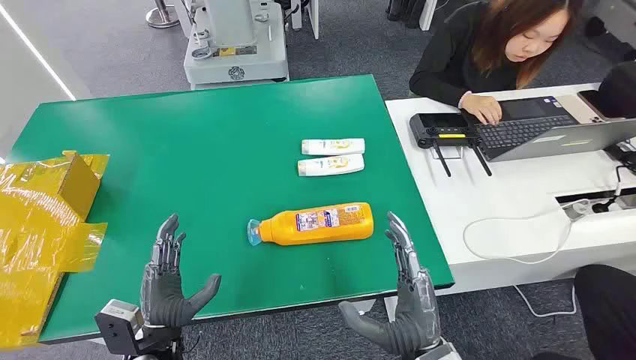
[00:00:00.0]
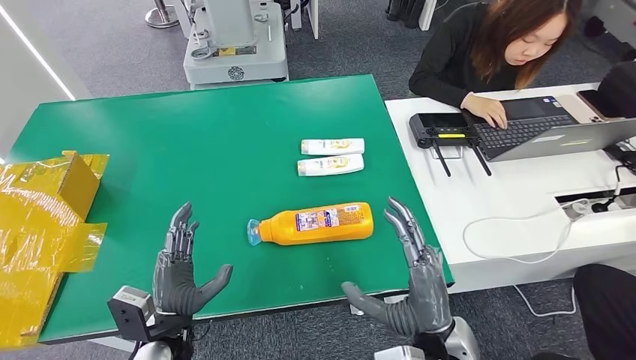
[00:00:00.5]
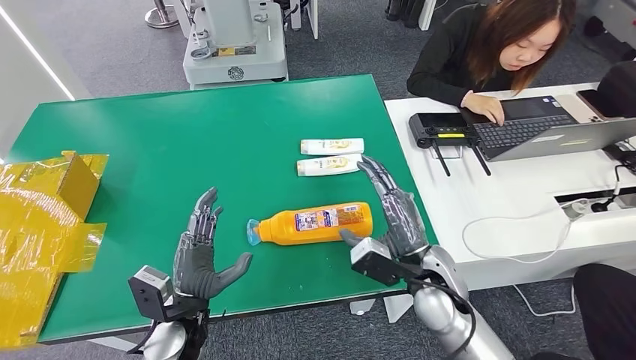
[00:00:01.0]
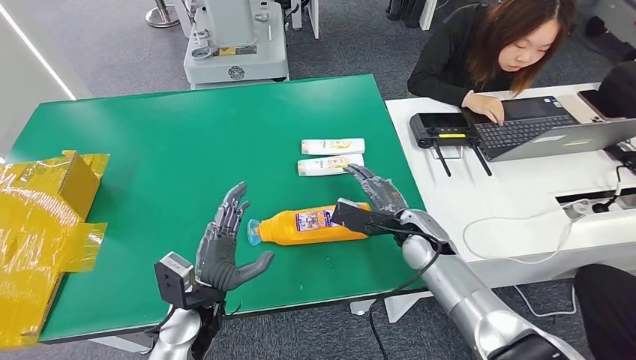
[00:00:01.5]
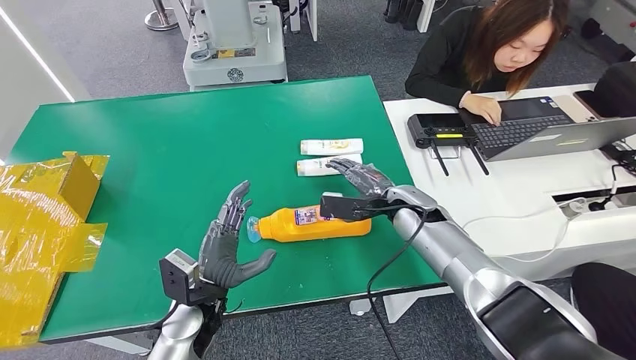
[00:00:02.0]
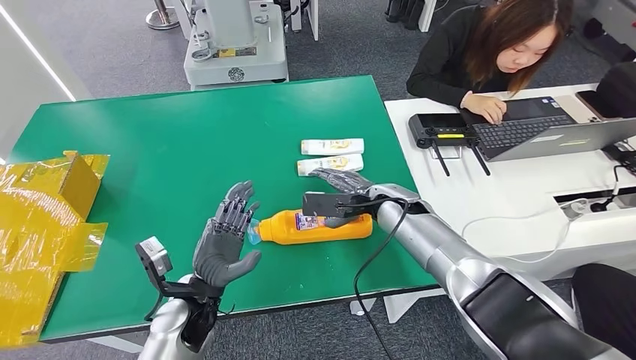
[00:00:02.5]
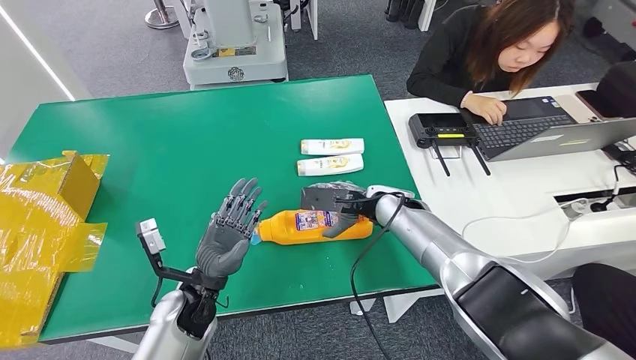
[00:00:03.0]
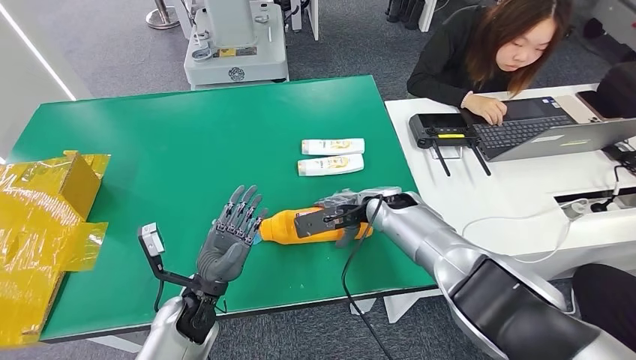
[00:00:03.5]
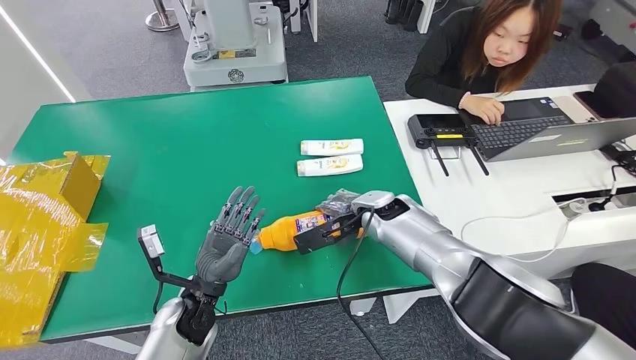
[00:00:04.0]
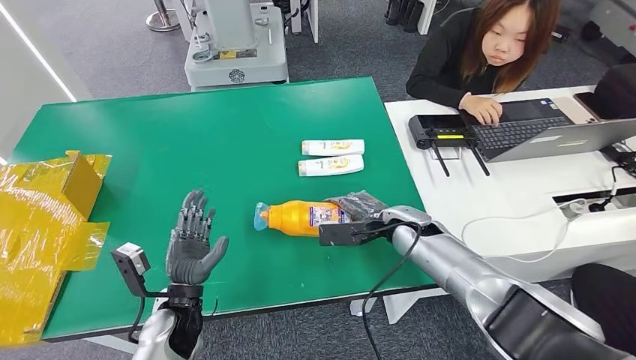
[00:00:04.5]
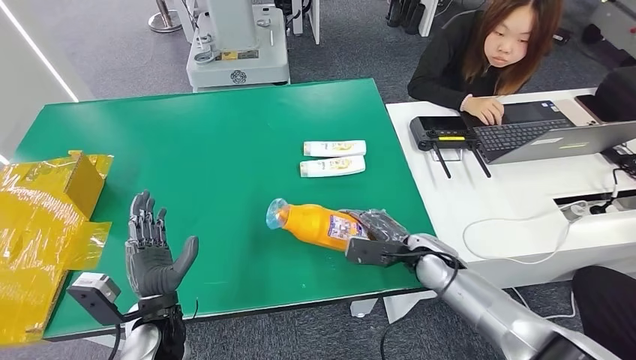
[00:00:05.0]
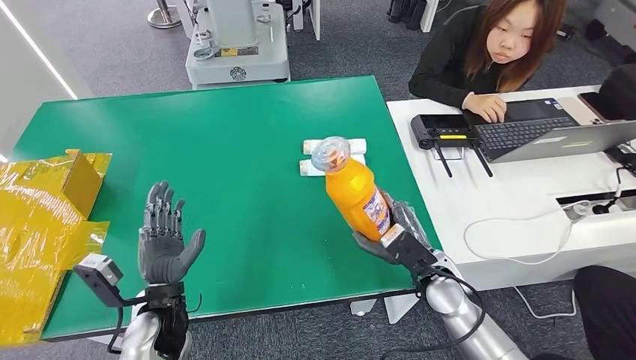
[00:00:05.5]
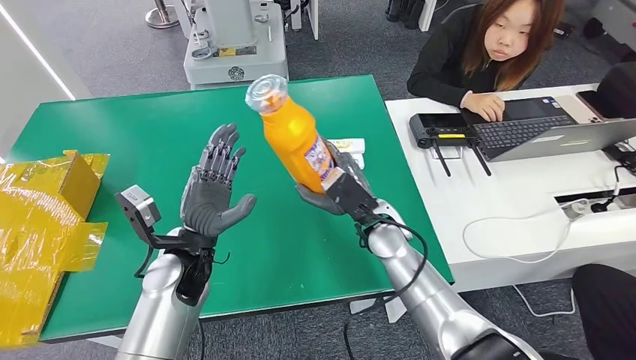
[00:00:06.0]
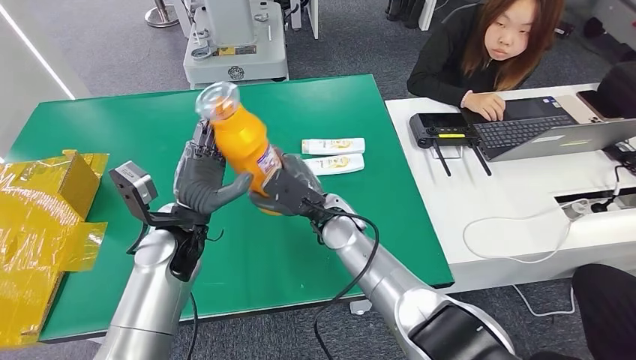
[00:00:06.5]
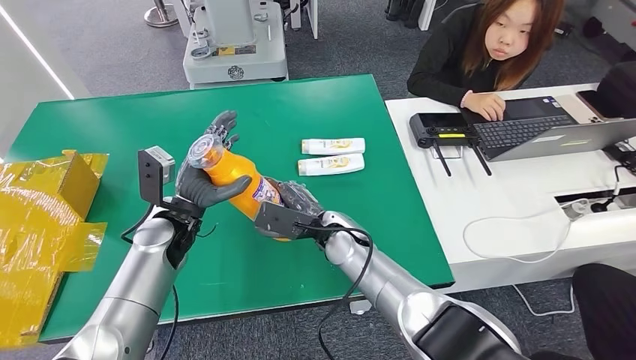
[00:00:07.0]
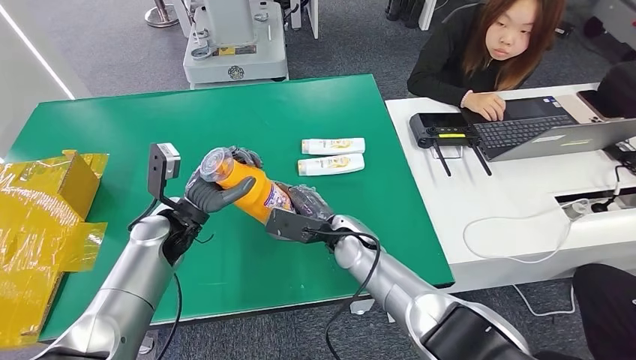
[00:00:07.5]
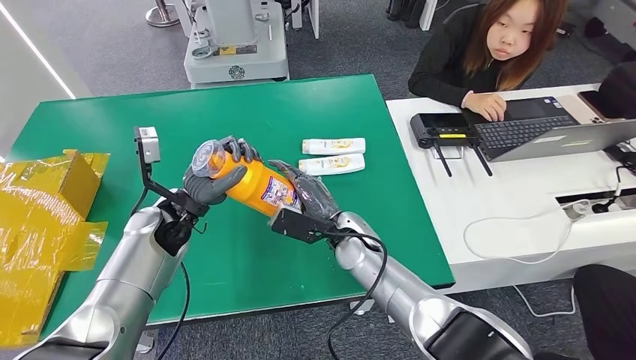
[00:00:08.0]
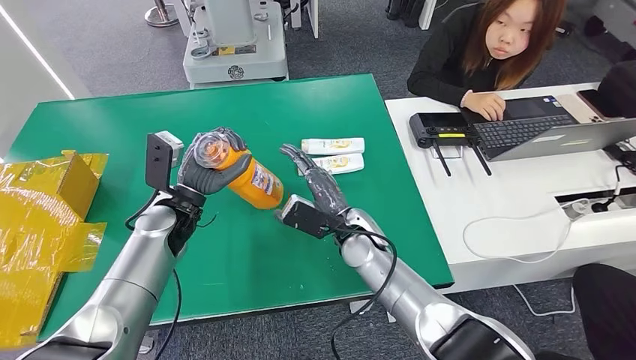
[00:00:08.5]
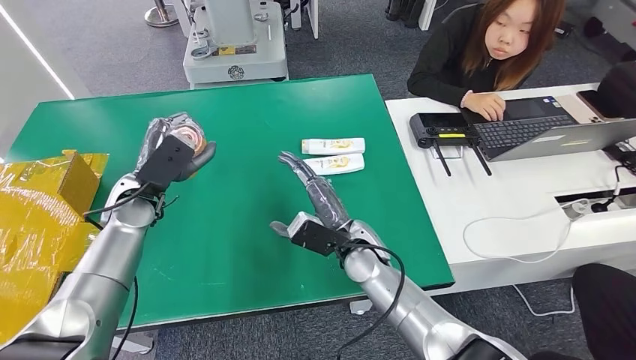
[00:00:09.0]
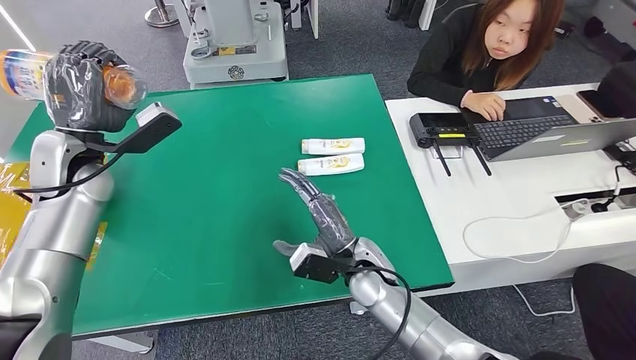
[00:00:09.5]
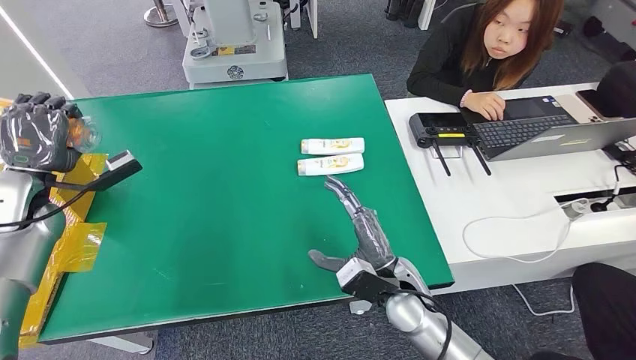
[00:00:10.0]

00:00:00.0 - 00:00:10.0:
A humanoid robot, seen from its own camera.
Step, 00:00:00.0 - 00:00:05.0: Pick up the bottle from the table.

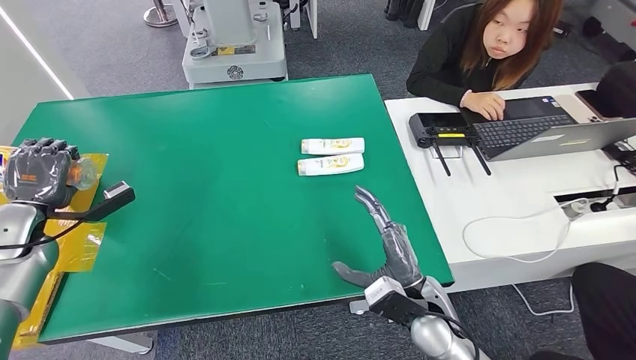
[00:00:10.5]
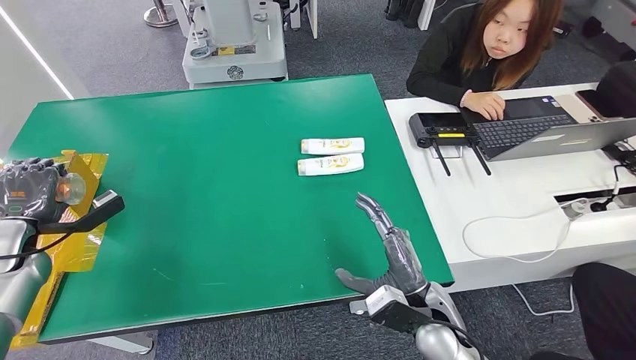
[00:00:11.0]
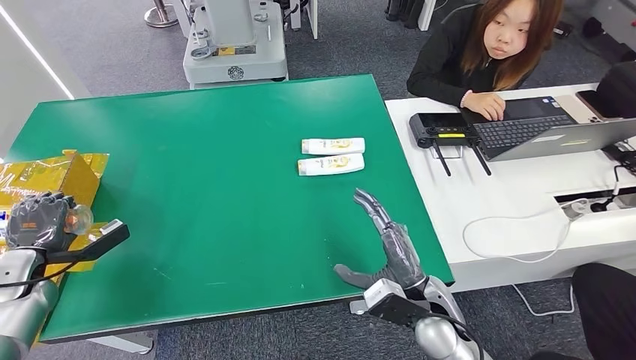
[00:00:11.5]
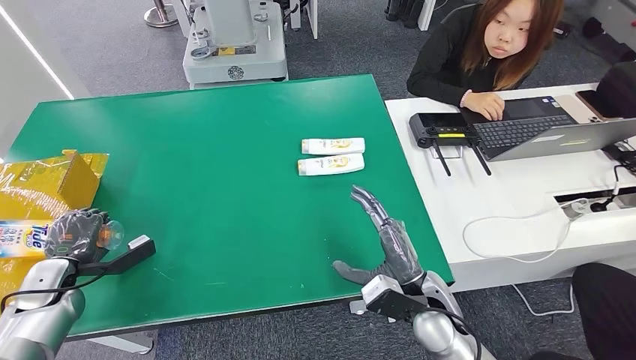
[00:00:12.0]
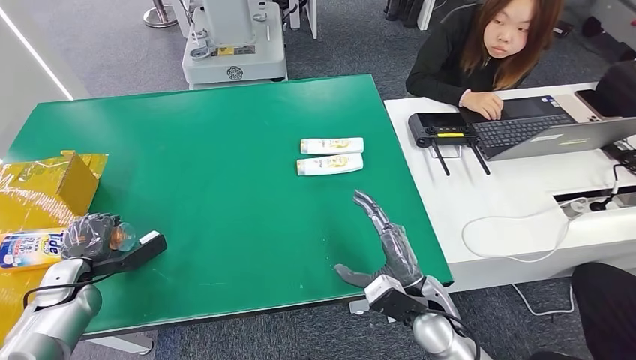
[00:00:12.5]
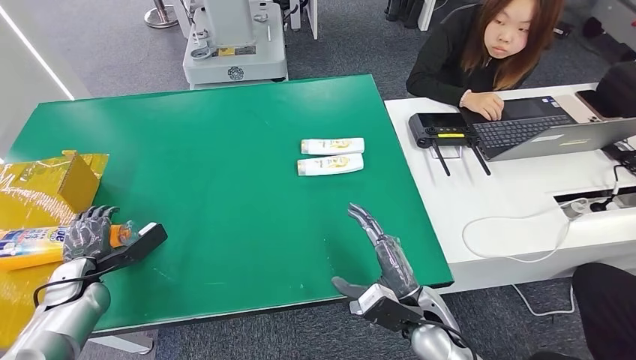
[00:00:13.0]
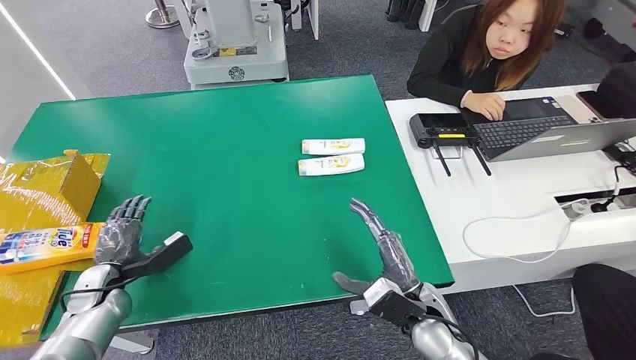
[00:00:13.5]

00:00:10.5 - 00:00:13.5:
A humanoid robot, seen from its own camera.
Step, 00:00:10.5 - 00:00:13.5: Turn the bottle to the front side.
00:00:10.5 - 00:00:12.0: The left hand is displaced downward and backward by about 10 cm.
00:00:12.0 - 00:00:13.5: The left hand heads to the right, covering some 10 cm.

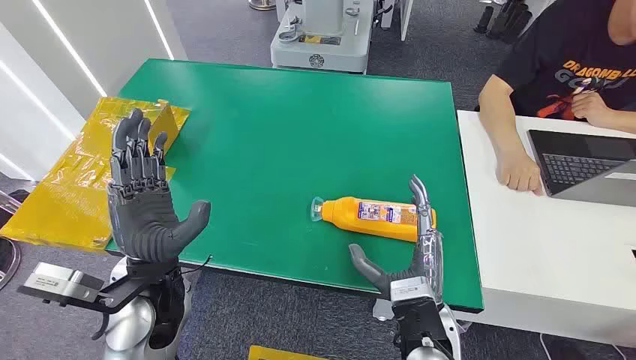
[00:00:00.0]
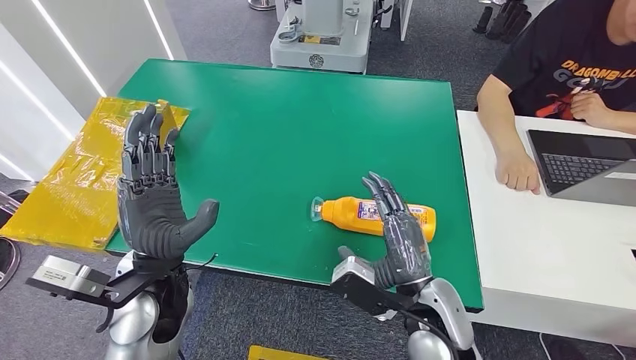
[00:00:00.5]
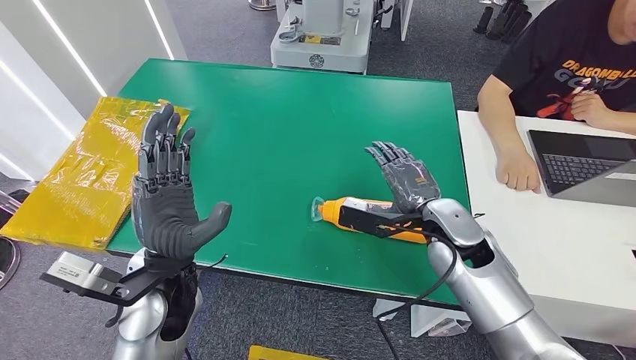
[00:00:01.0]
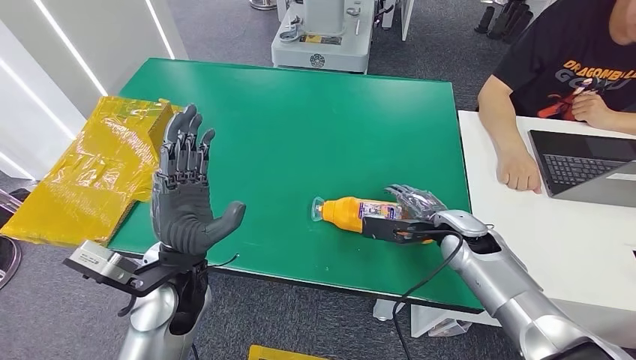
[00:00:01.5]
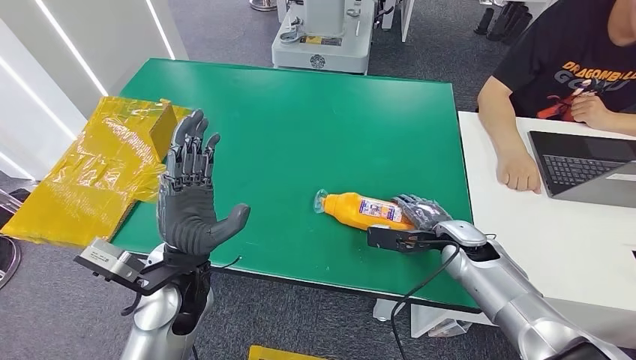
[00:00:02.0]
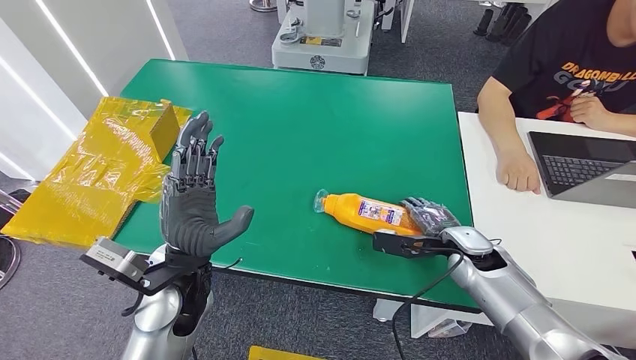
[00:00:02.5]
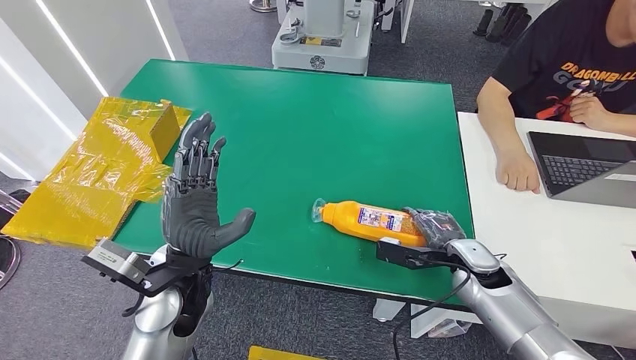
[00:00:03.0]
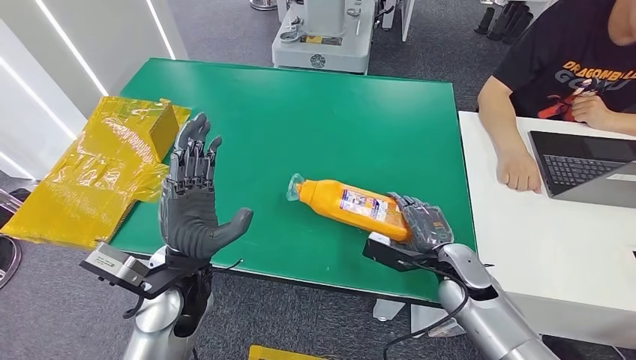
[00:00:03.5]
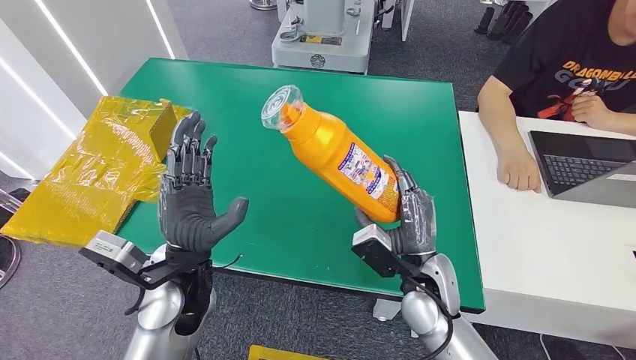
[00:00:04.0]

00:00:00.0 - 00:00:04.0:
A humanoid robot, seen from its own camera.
Step, 00:00:00.0 - 00:00:04.0: Pick up the bottle from the table.
00:00:02.0 - 00:00:04.0: The right hand goes some 15 cm to the left and backward.
